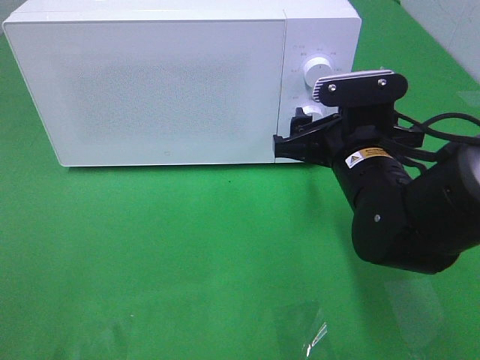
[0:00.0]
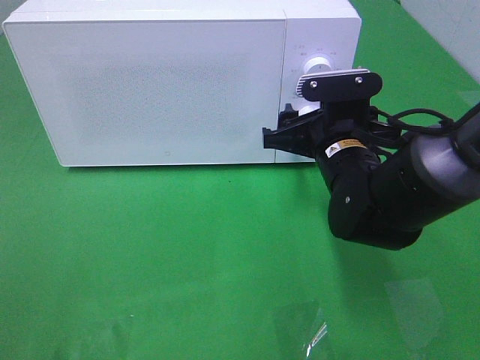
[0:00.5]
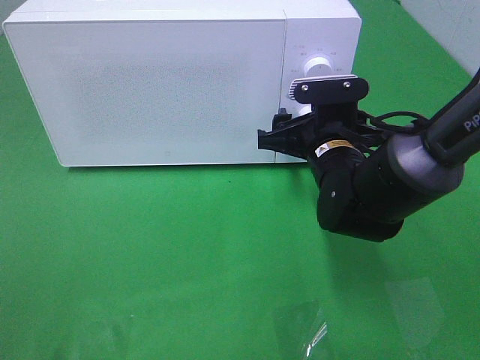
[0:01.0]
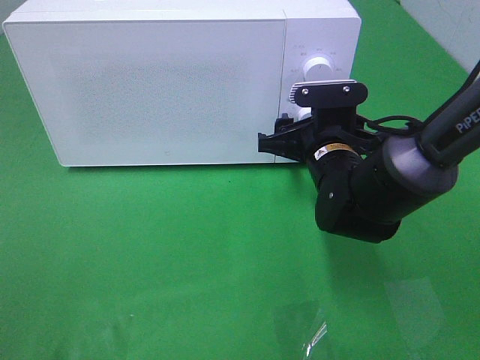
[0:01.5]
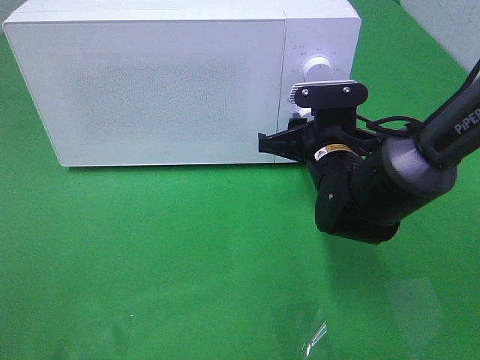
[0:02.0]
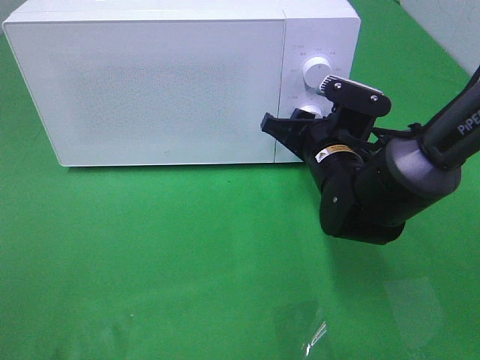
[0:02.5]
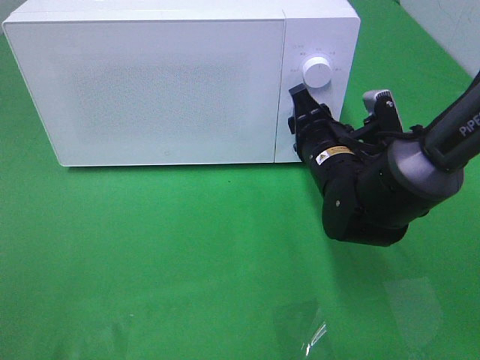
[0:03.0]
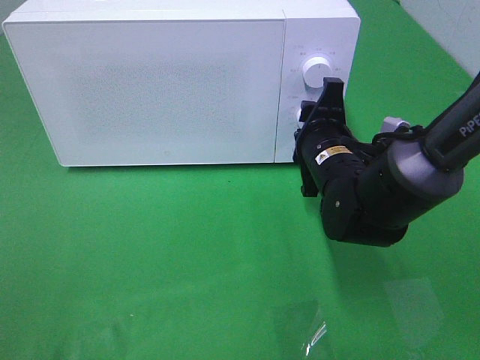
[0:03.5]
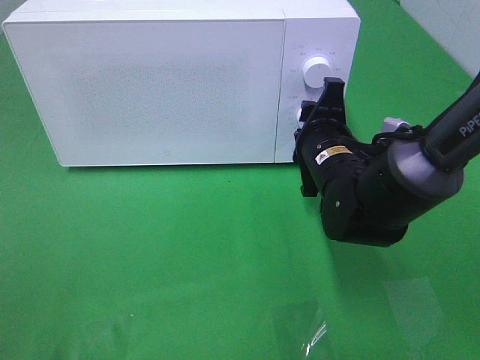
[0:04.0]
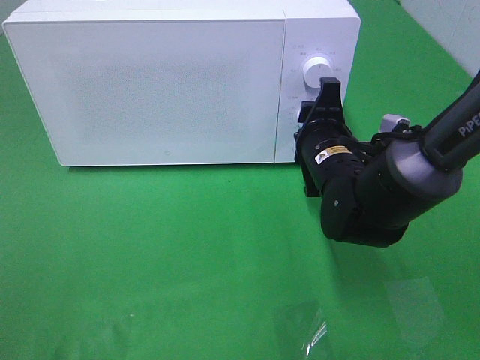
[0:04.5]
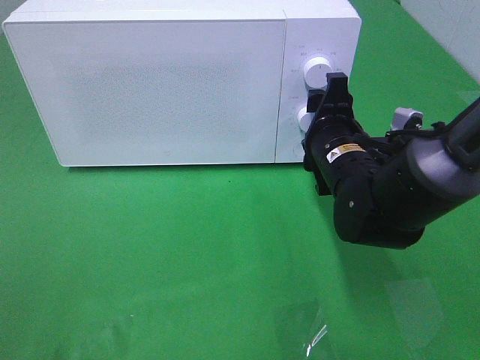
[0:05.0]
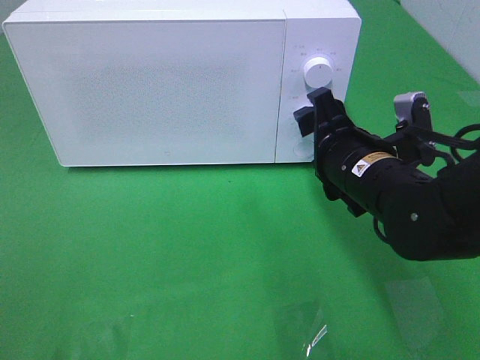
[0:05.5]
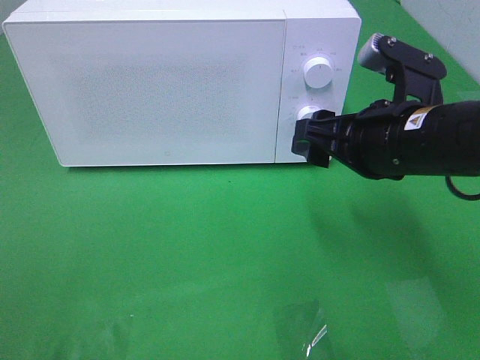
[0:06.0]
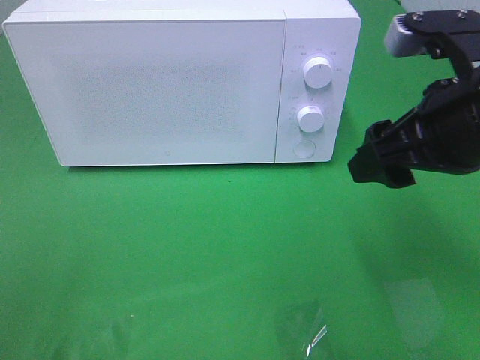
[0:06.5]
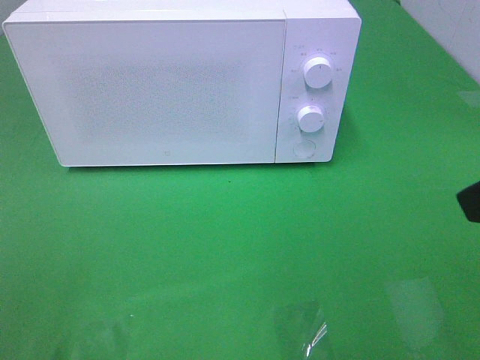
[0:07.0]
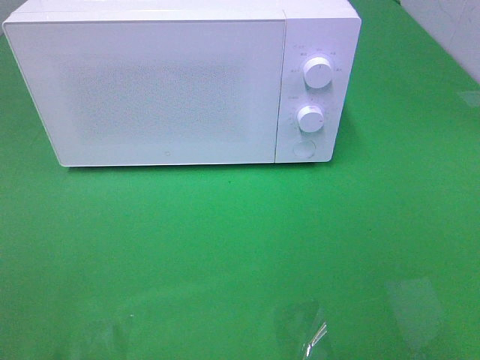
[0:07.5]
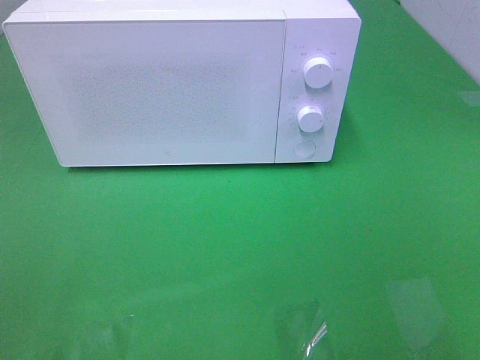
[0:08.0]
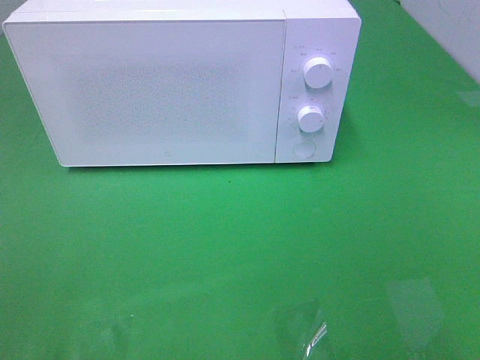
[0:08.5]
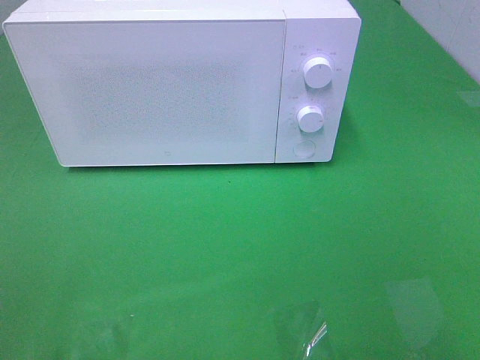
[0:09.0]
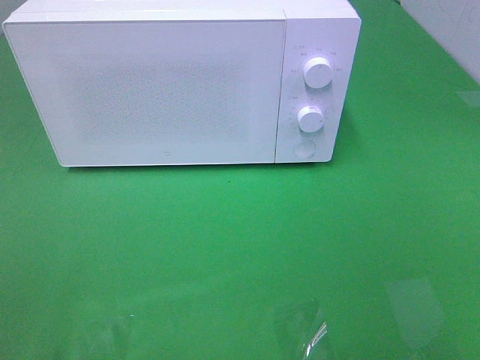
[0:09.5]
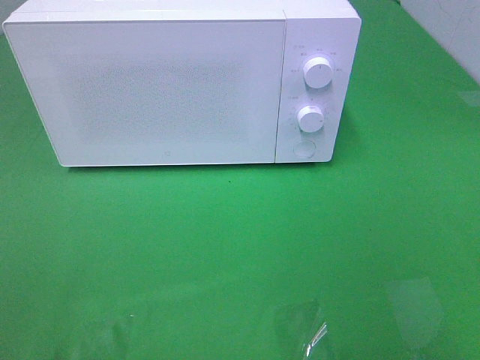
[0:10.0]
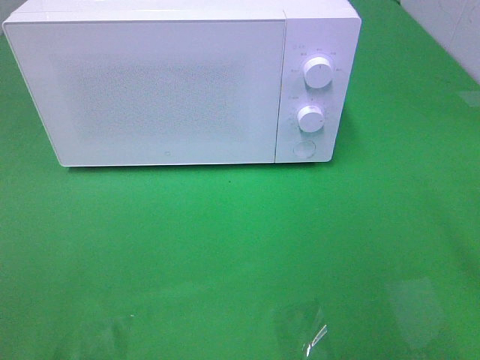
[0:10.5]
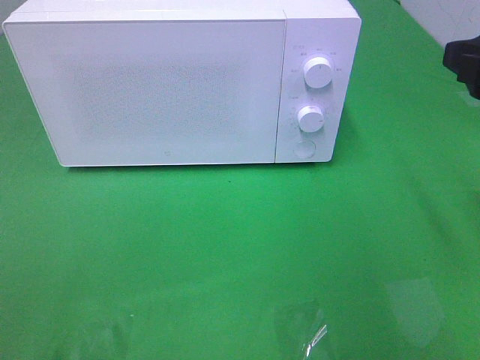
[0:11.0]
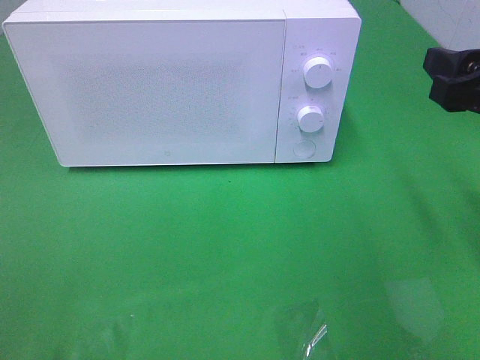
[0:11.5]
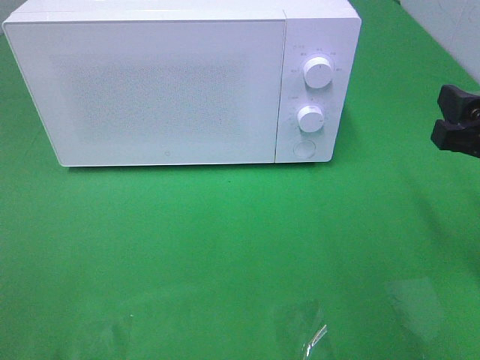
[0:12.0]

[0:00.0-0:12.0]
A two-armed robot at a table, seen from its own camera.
Task of the whole recording: Heat the burger.
Step, 0.0 to 5.0 s: Right hand: twist timer button.
0.0 to 2.0 s: The right gripper is displaced forward by some 5 cm, and closes.
4.0 to 6.0 s: The right gripper shifts roughly 10 cm upward and backward.
6.0 to 8.0 s: The right gripper moves backward and to the right, approximately 25 cm.
10.0 to 12.0 s: The right gripper heads forward and downward, covering some 15 cm.

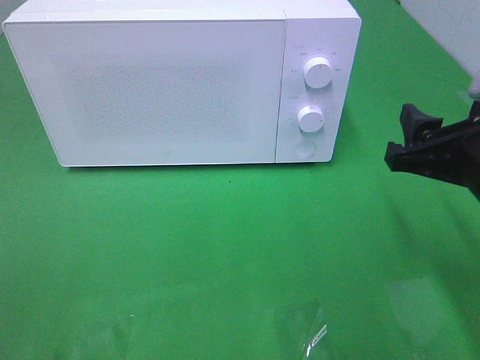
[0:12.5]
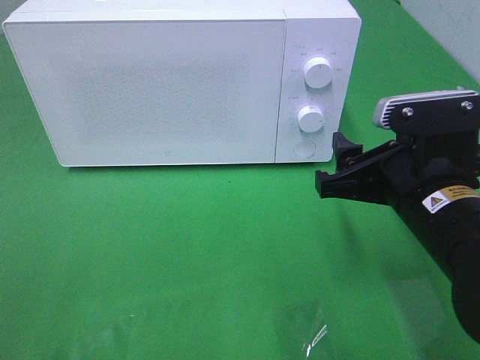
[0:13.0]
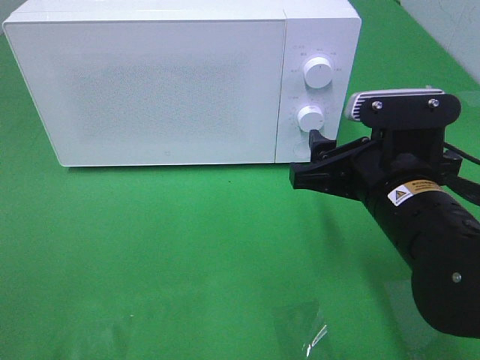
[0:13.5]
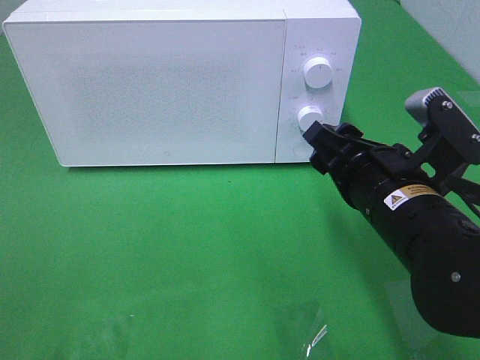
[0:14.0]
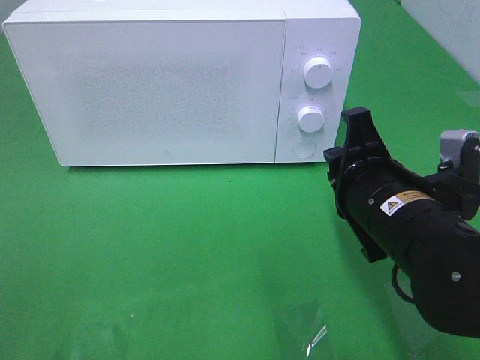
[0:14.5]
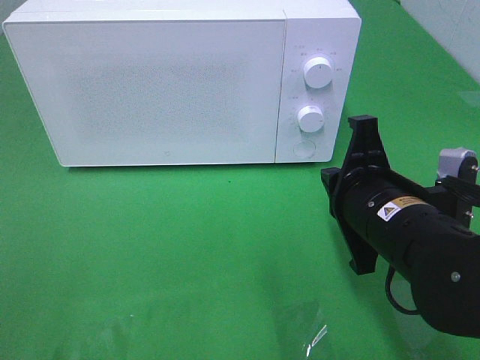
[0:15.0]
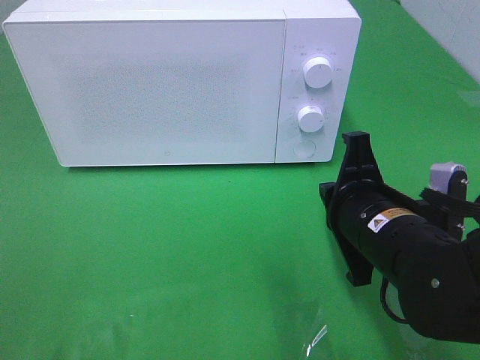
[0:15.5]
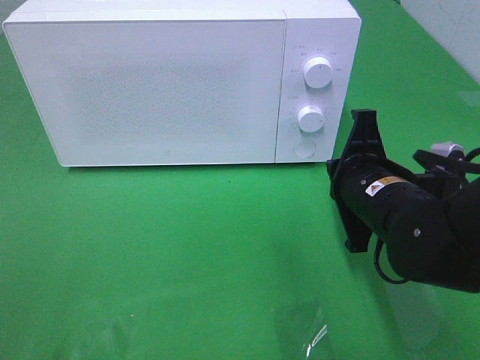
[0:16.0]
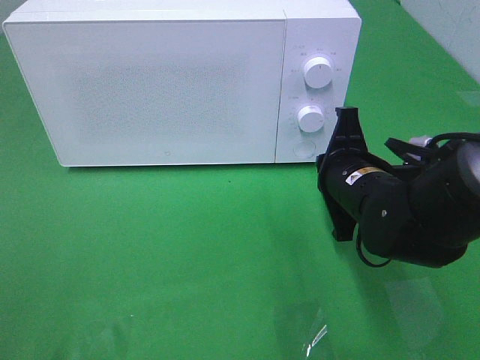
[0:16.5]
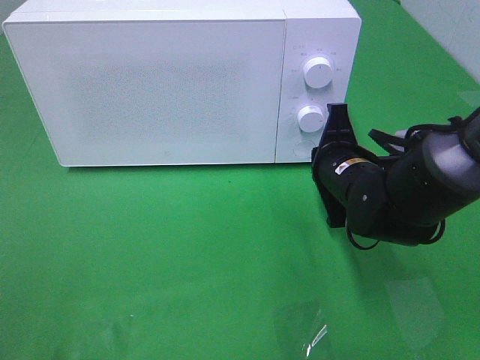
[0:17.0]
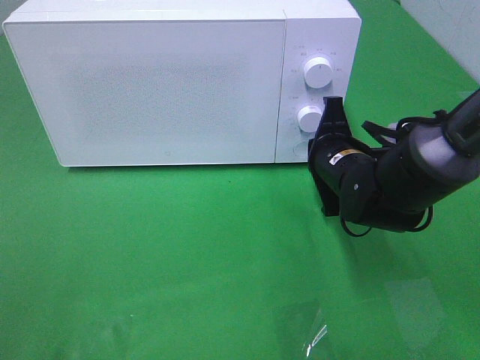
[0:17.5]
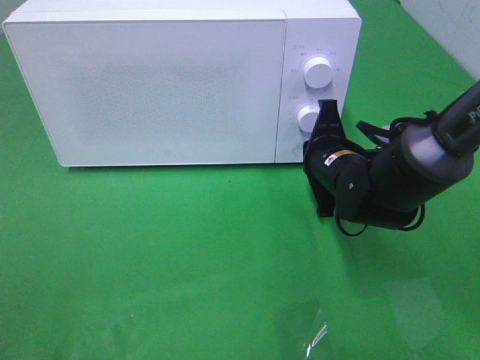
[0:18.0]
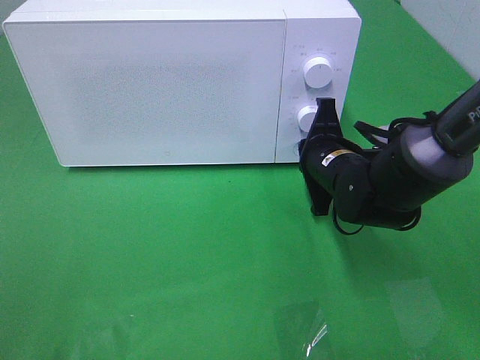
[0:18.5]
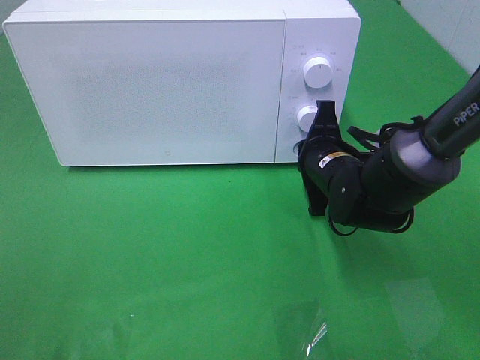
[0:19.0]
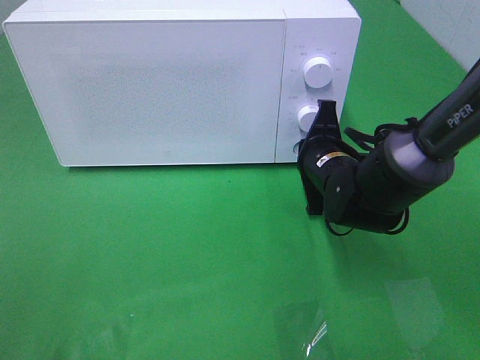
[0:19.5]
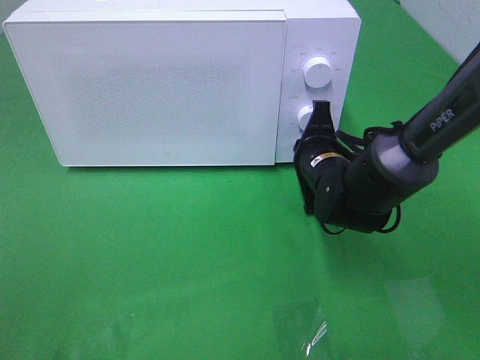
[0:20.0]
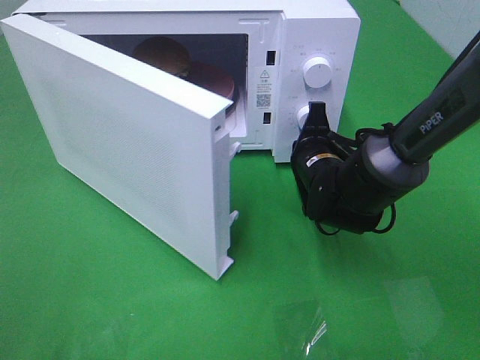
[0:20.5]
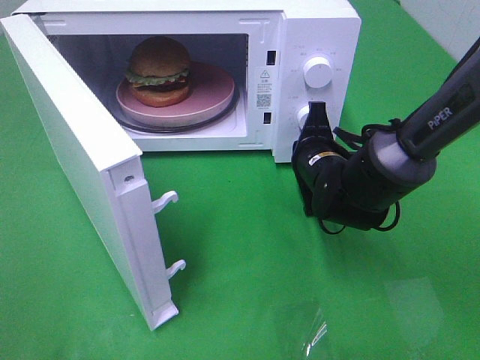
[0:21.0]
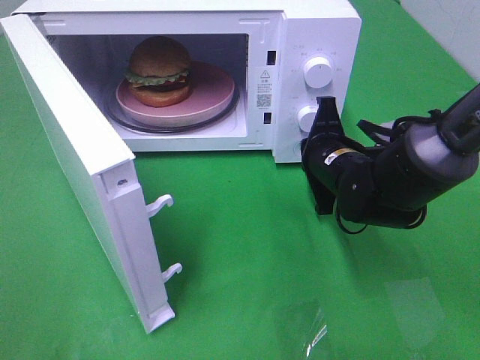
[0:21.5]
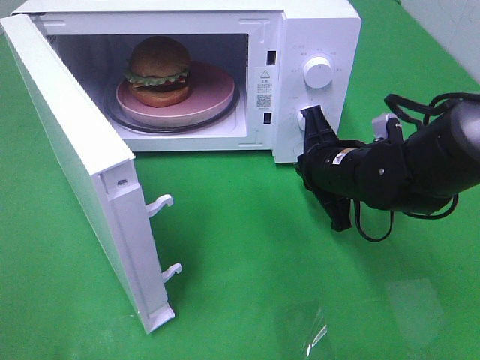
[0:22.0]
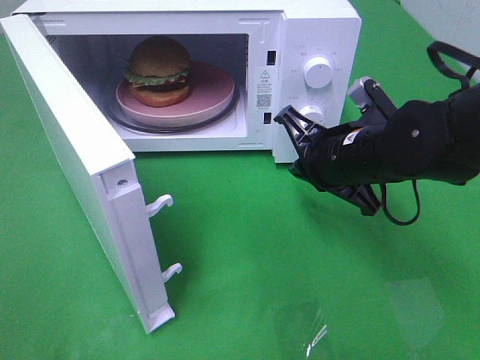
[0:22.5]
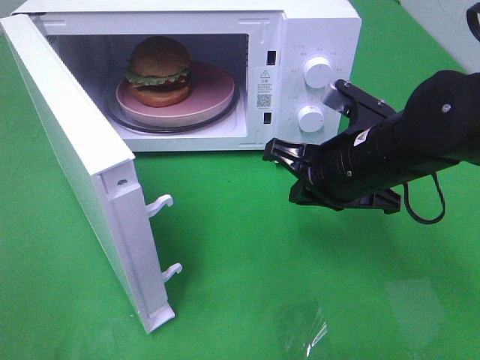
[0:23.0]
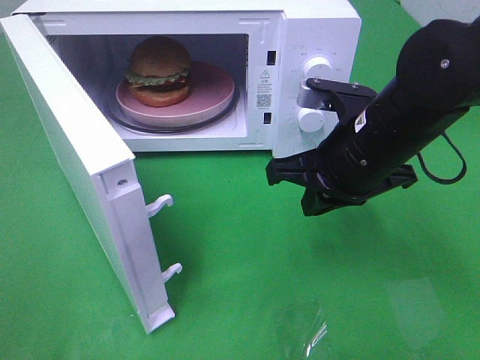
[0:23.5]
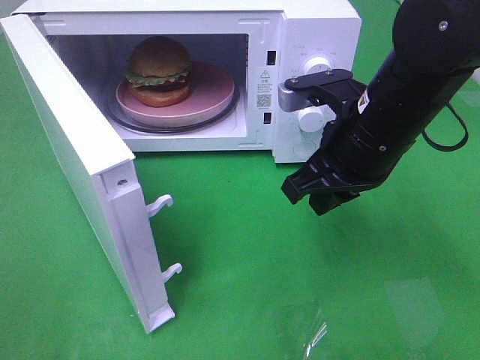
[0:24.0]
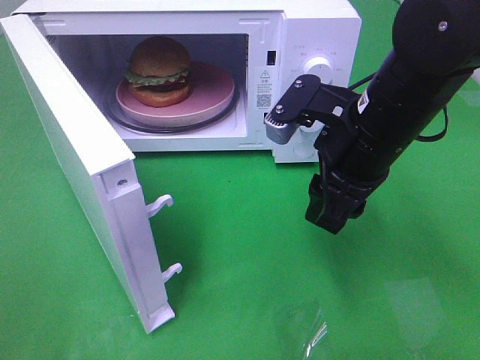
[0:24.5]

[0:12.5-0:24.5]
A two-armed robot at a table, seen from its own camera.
Task of the whole recording: Heat the burger.
Step, 12.5 to 21.5 s: Right hand: press the switch.
12.5 to 14.5 s: The right gripper moves to the left, approximately 10 cm, and closes up.
14.5 to 16.5 s: The right gripper moves forward, about 5 cm.
16.5 to 18.5 s: The right gripper moves forward, roughly 5 cm.
20.5 to 22.5 s: The right gripper travels upward and backward by some 10 cm.
22.5 to 24.5 s: The right gripper heads upward, covering approximately 5 cm, and opens.

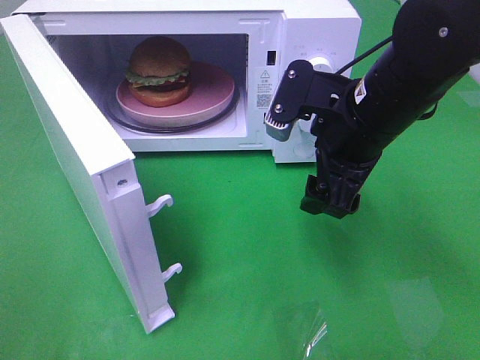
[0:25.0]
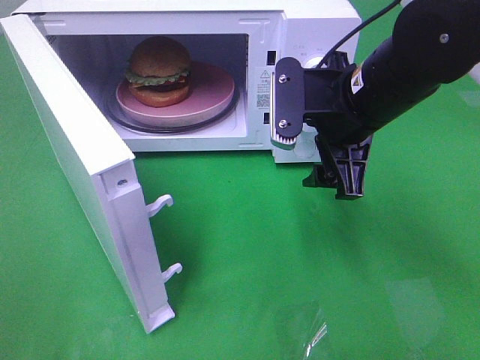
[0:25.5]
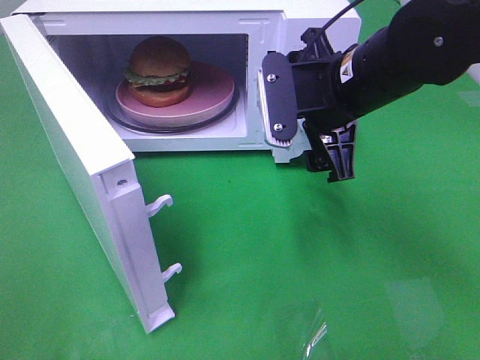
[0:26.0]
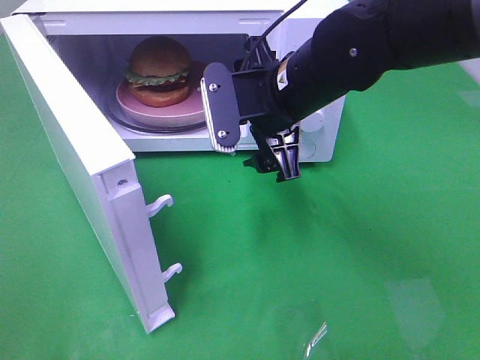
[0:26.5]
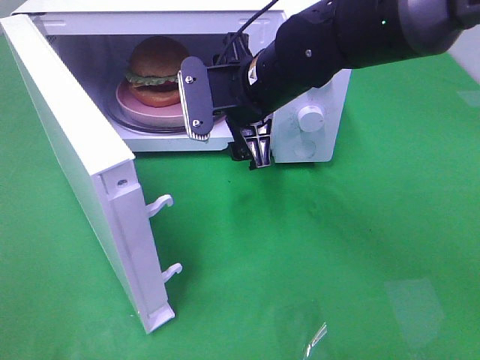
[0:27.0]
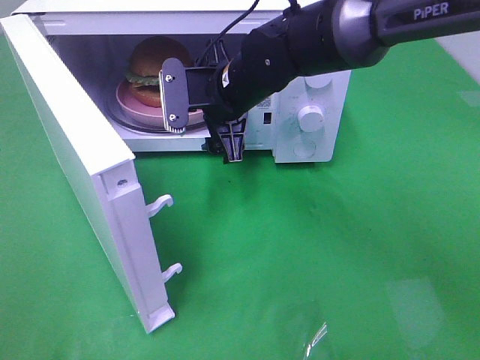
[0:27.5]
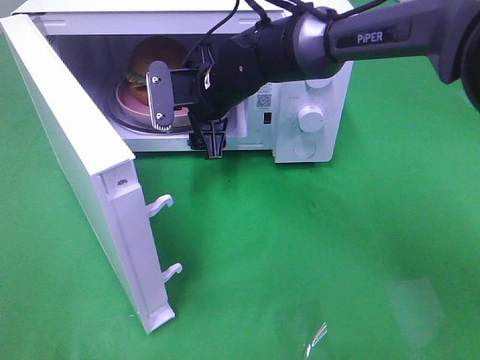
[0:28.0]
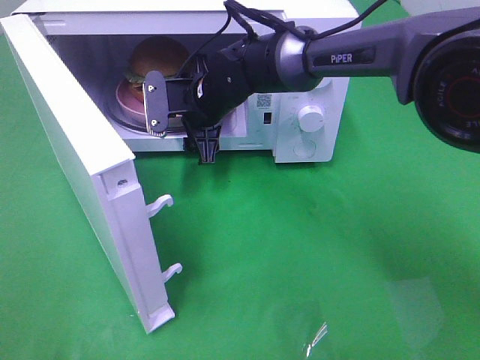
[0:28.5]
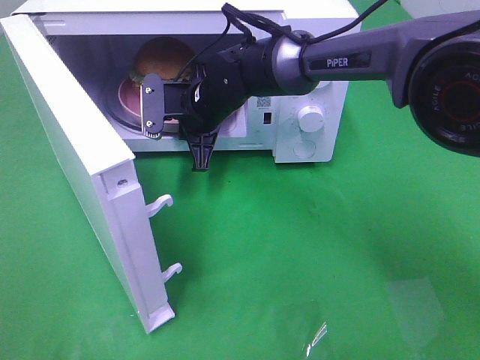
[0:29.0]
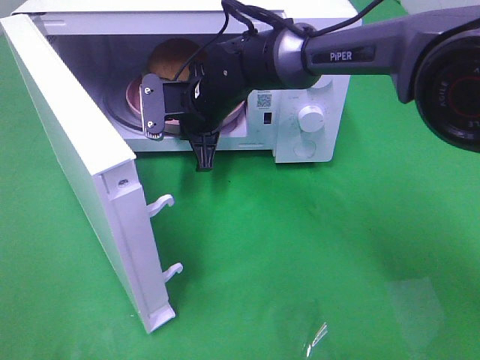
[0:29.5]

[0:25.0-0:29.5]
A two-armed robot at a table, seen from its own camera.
Task of the whole recording: Heat the burger.
Step, 25.0 to 29.0 s: Right hand: grab the plate with the hamburger.
25.0 to 27.0 s: The right gripper is displaced to the left and forward by about 10 cm.
27.0 to 29.5 s: The right gripper shifts approximately 10 cm forward, downward and to the left, and closes up.
